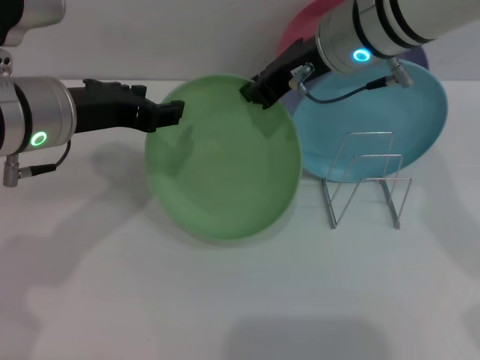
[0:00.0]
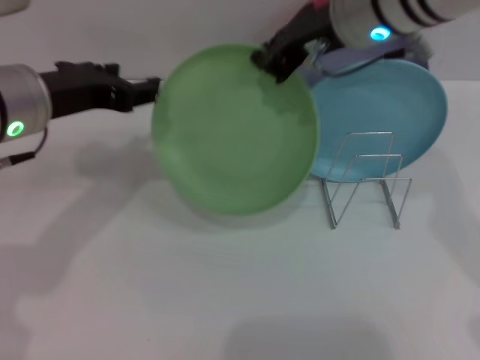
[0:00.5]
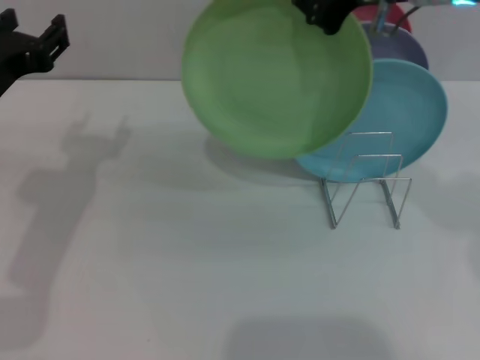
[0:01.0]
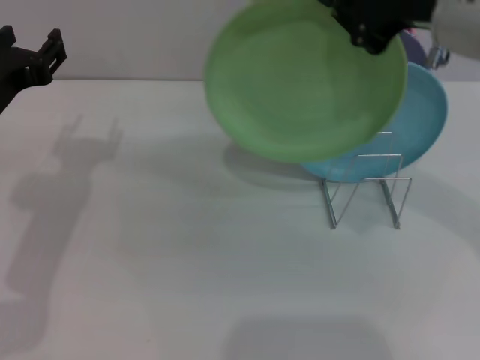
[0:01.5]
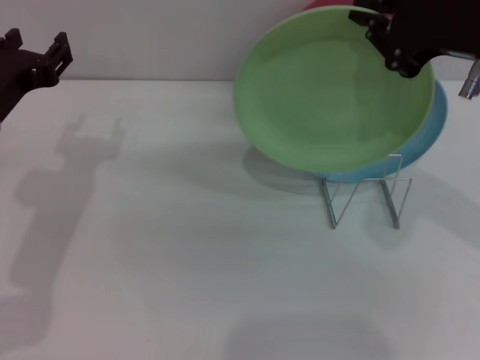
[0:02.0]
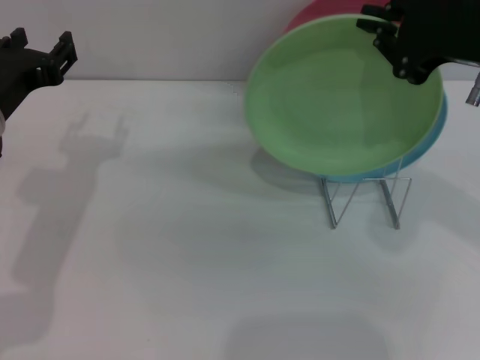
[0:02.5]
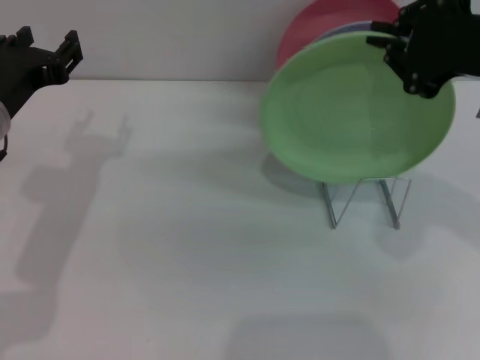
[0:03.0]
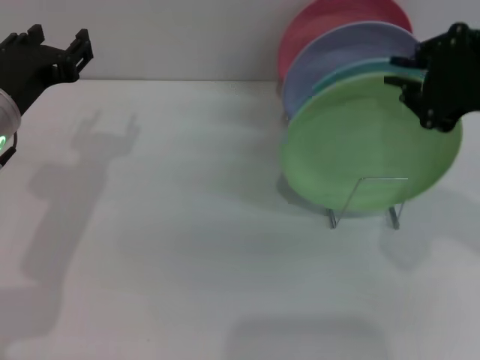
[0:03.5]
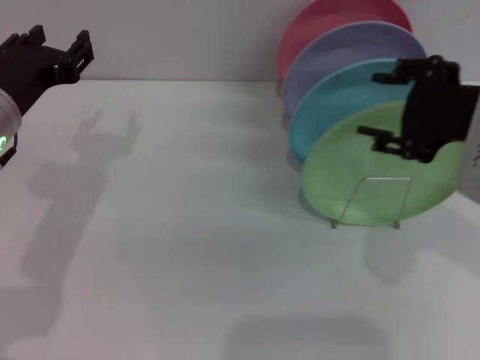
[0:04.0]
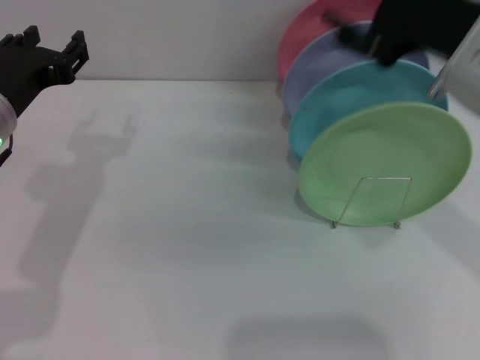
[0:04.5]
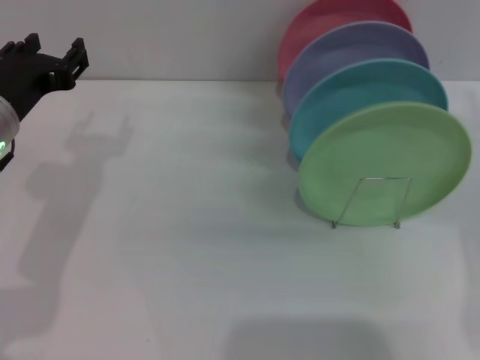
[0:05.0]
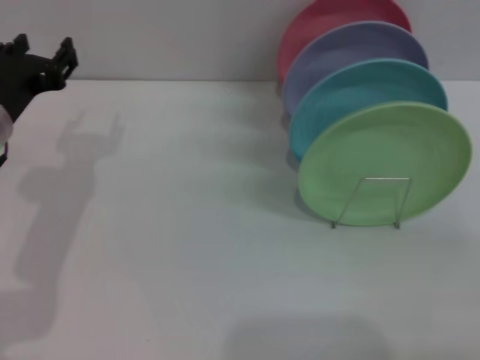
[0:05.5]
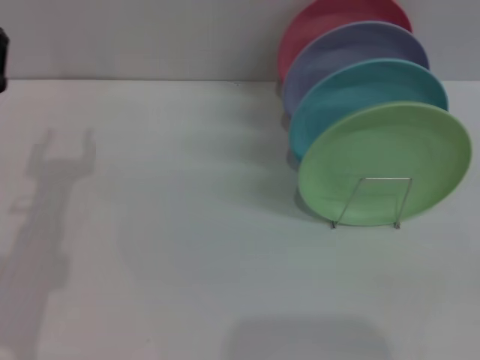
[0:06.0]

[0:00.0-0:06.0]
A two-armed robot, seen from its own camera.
Task of the whole recording: Grip the plate with one hand, pass it to the other, then set it on the shelf.
Step, 0:01.5 to 0:04.5: Place the plate on the shelf with the right gripper.
0:00.0 to 0:02.0: The left gripper travels to the left by some 5 cm. The right gripper moves to the right and backward, roughly 15 cm.
0:02.0 to 0:04.0: The right gripper opens its fingers.
0:04.0 to 0:06.0: The right gripper is displaced to the right, downward and backward by about 30 cm; the left gripper heads downward, covering about 5 cm.
